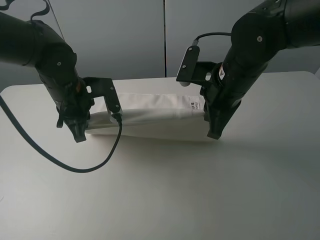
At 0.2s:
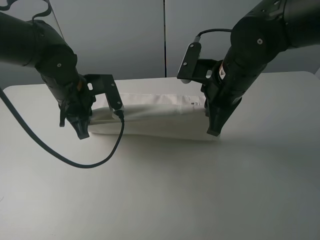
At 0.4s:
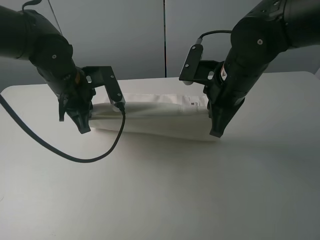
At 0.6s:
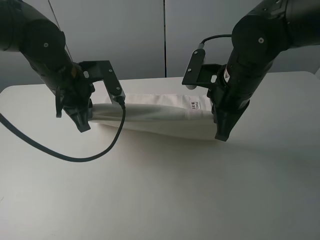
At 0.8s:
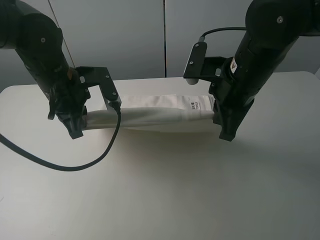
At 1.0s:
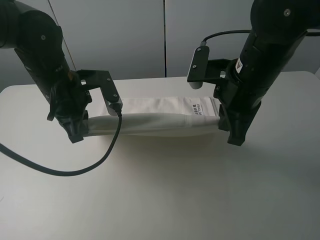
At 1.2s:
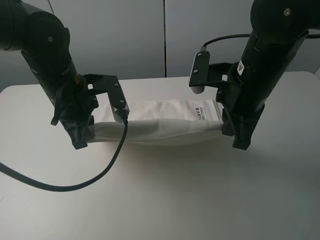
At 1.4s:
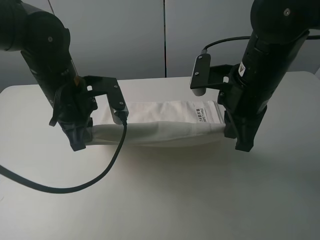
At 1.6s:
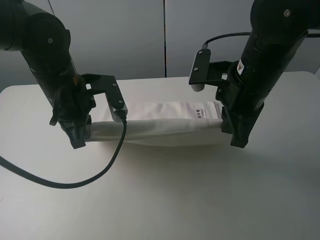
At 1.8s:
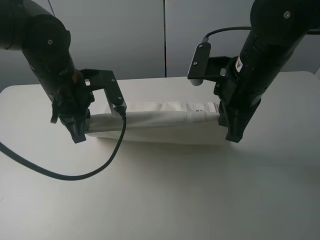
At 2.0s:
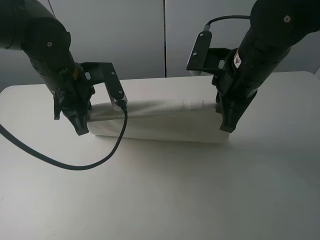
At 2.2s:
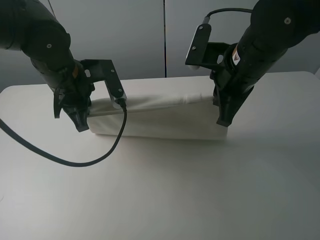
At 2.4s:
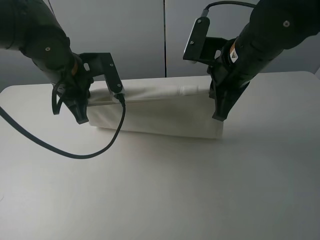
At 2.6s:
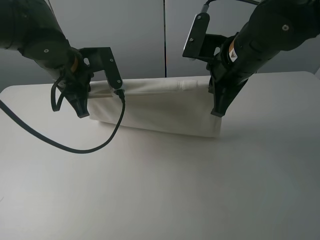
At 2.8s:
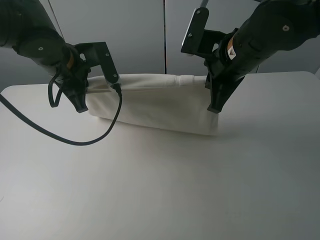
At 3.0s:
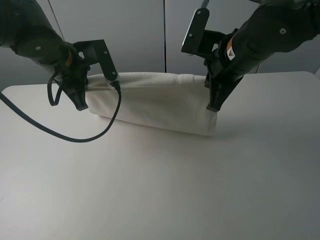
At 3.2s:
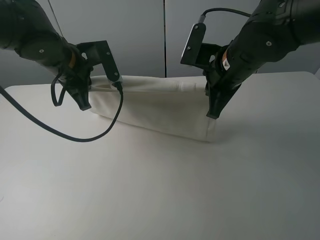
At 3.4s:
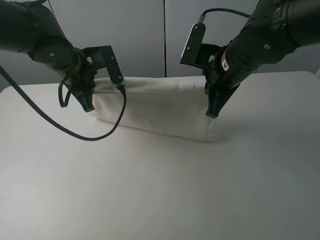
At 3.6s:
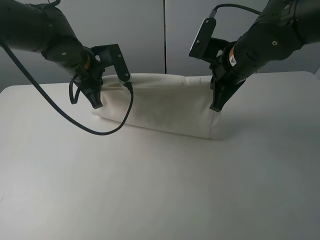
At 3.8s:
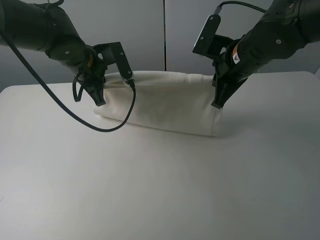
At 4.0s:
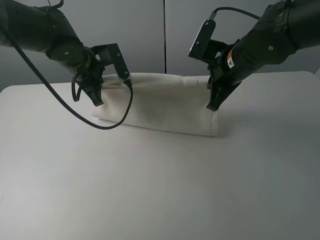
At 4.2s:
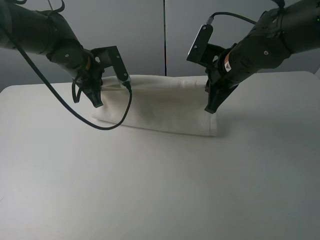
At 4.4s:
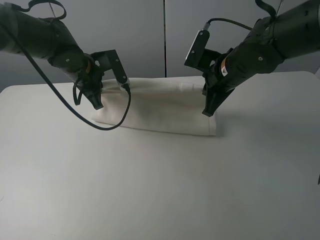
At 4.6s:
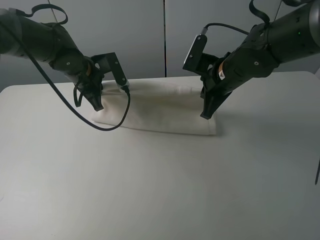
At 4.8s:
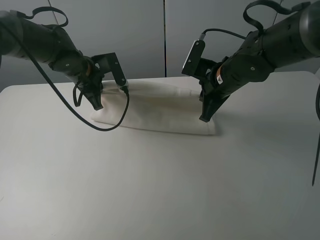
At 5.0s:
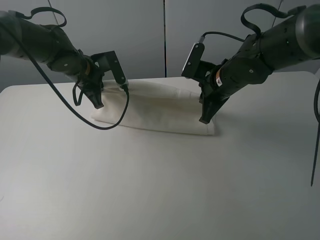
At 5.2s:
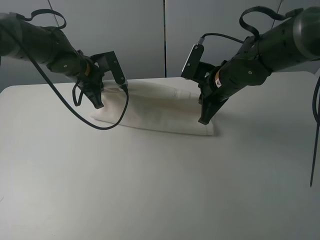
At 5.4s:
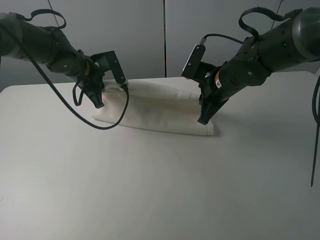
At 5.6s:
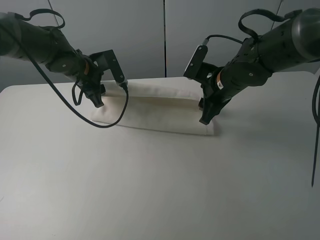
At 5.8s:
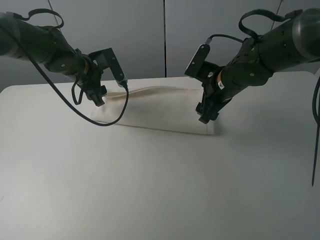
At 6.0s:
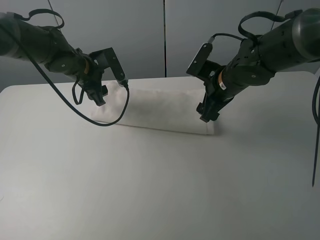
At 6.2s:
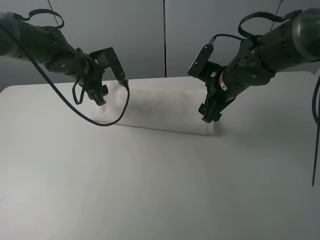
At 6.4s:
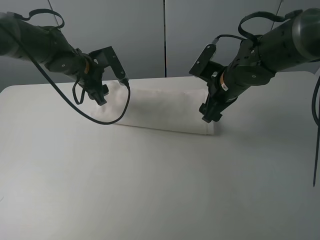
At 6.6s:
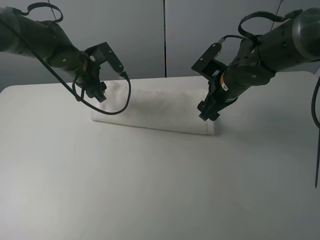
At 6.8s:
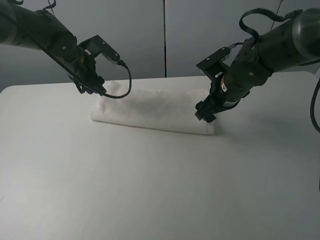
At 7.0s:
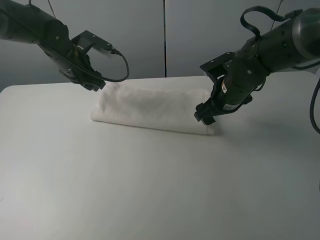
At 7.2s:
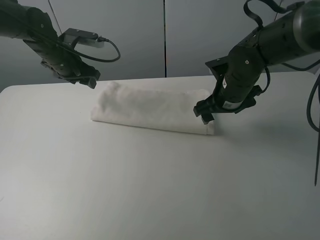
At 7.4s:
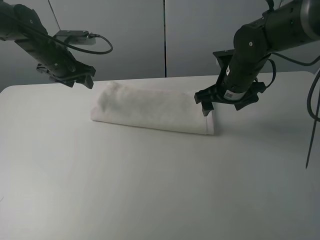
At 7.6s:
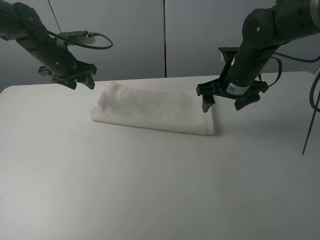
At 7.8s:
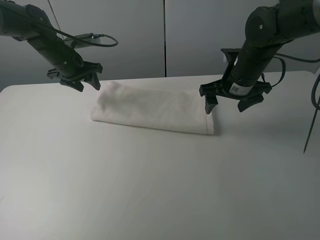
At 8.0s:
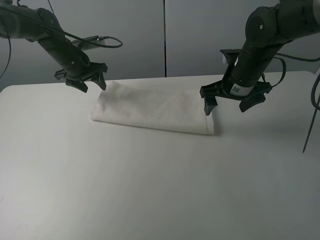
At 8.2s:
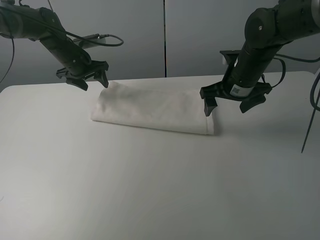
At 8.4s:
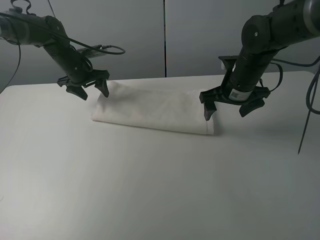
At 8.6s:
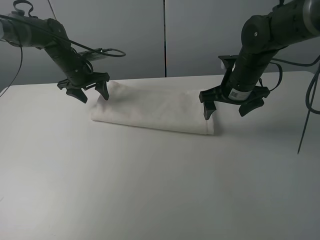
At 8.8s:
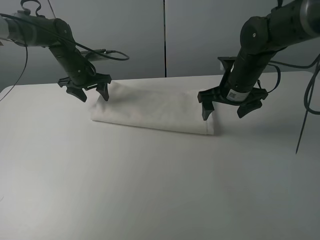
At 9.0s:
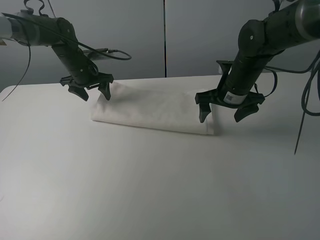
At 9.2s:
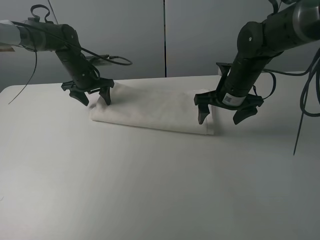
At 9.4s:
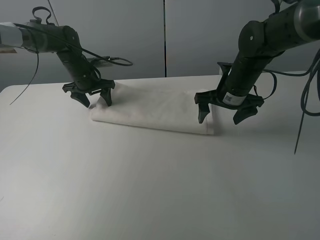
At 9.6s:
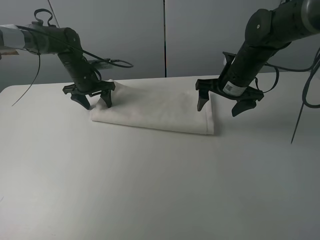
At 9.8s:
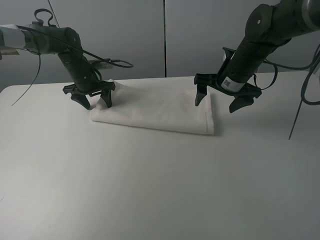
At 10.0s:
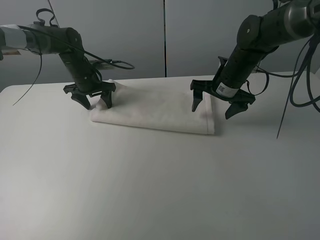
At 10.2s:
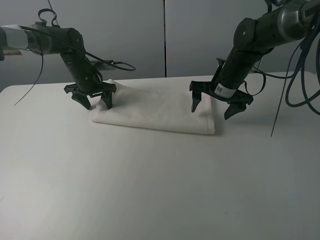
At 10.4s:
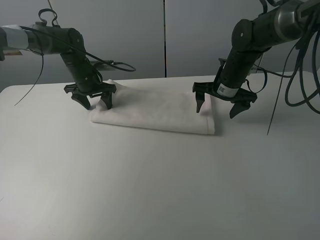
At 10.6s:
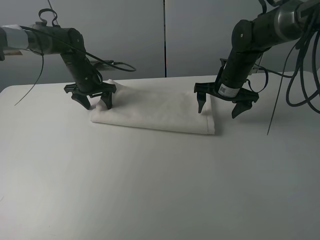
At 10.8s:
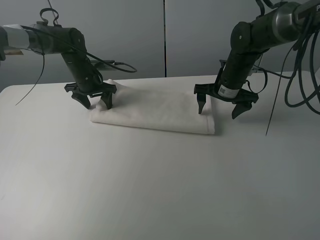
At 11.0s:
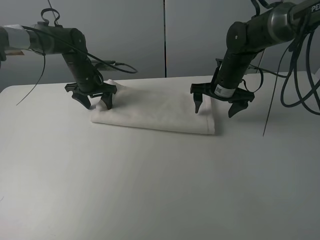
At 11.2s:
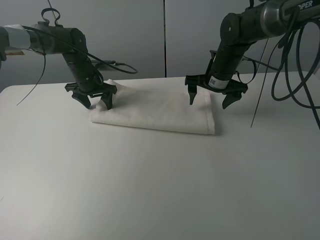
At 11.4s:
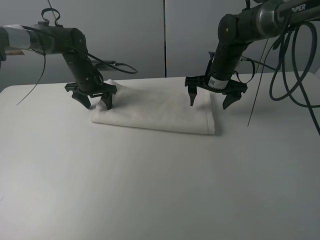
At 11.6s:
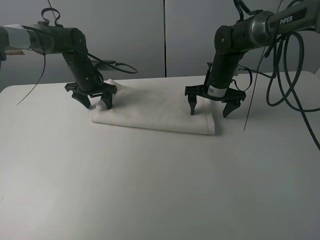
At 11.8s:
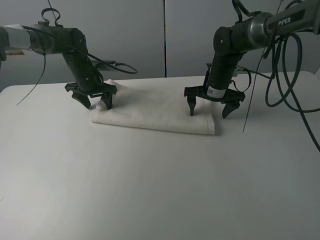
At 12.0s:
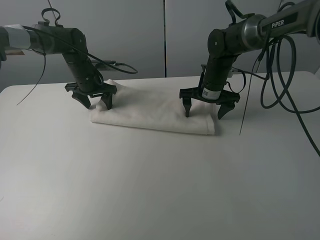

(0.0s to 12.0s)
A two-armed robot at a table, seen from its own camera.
Task of the whole recording: fold the towels on the table.
Step, 0.0s - 6.6s: Fold the white towel upwards with the right gripper.
Step, 7.0s - 9.6s: Press on the white towel with the left gripper.
0.0s - 1.6s: The grippers move only a little.
1.6s - 3.0s: The left gripper is displaced forward by roughly 5 cm.
3.0s - 4.4s: The left gripper moves forward and downward, roughly 10 cm. The right gripper heads downward, covering approximately 5 cm.
4.4s - 6.0s: The right gripper opens up. The left gripper opens up.
6.0s - 7.6s: The left gripper heads to the left, covering some 5 cm.
7.6s - 9.0s: The left gripper ends up approximately 5 cm from where it was.
9.0s - 10.4s: The right gripper changes place by about 5 cm.
10.4s - 12.0s: The right gripper ends up roughly 5 cm from where it was.

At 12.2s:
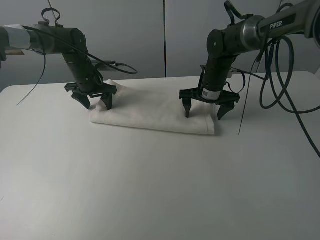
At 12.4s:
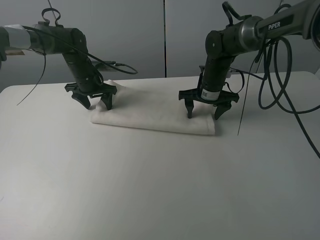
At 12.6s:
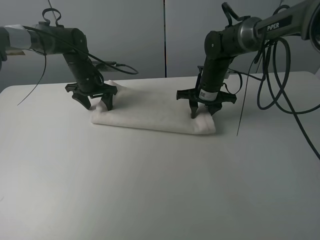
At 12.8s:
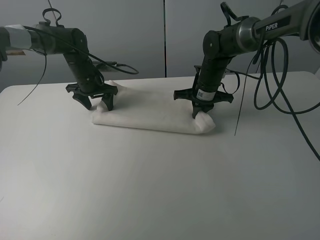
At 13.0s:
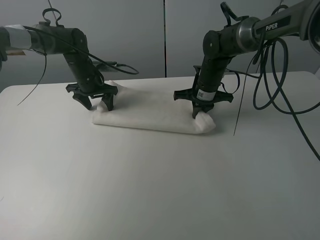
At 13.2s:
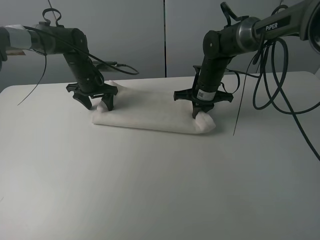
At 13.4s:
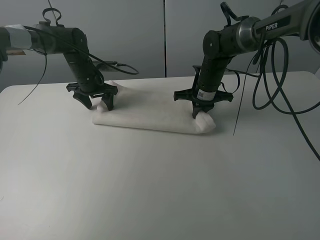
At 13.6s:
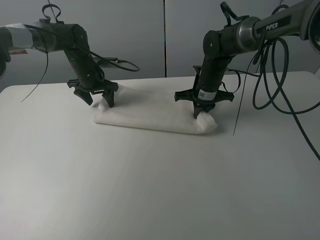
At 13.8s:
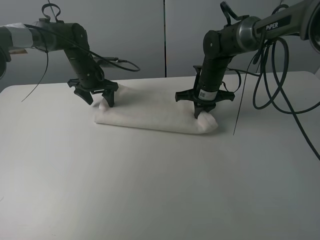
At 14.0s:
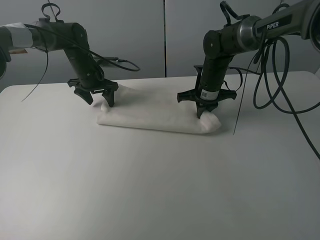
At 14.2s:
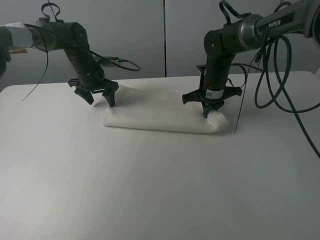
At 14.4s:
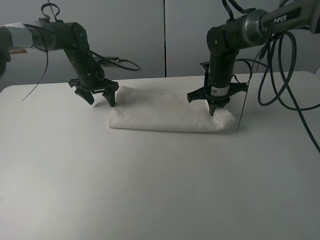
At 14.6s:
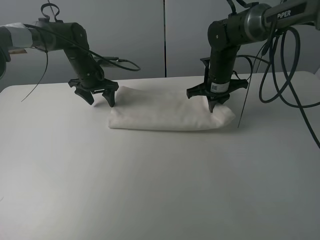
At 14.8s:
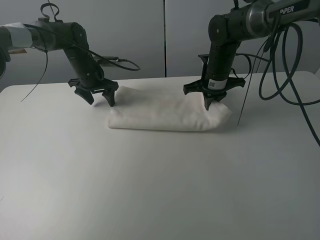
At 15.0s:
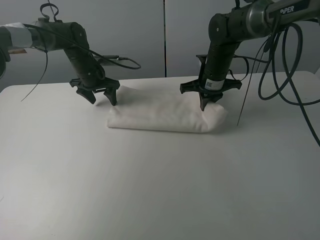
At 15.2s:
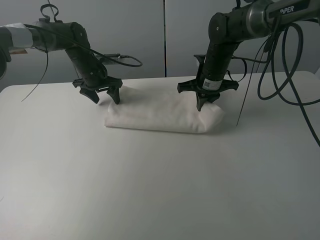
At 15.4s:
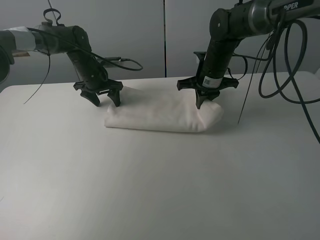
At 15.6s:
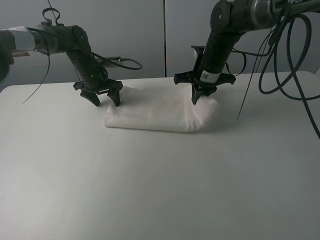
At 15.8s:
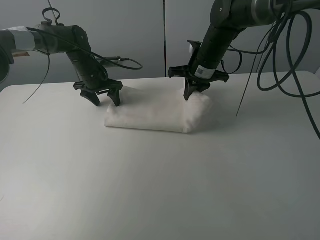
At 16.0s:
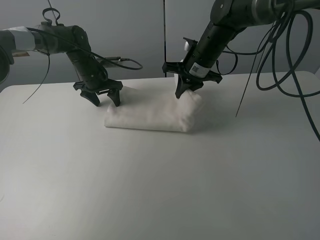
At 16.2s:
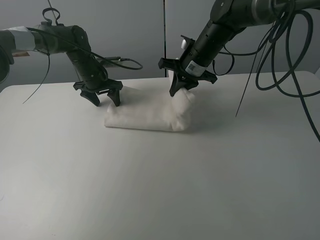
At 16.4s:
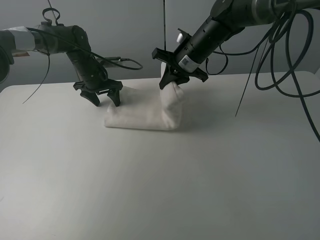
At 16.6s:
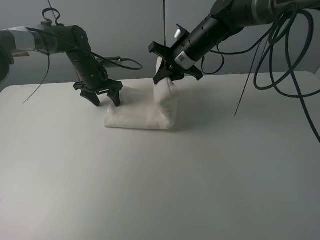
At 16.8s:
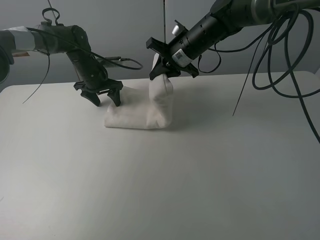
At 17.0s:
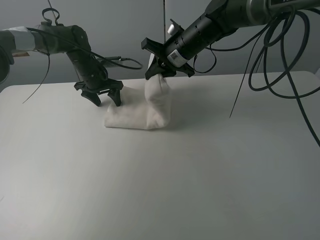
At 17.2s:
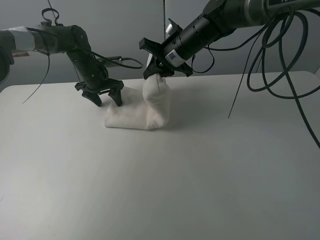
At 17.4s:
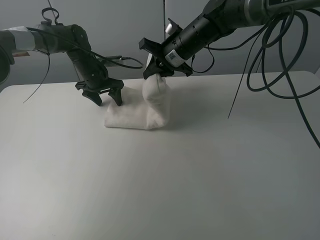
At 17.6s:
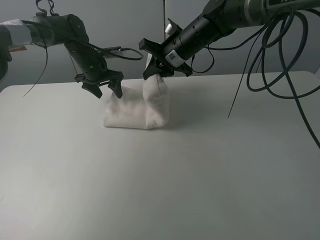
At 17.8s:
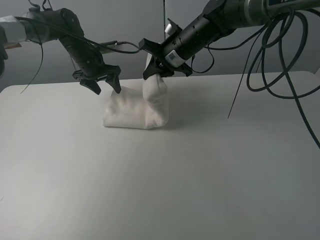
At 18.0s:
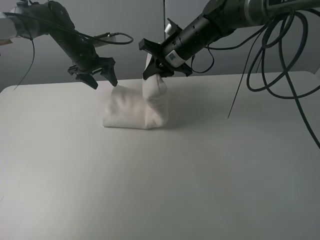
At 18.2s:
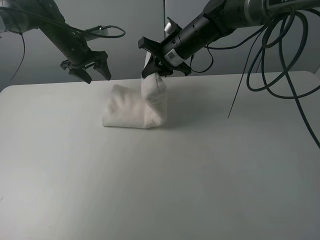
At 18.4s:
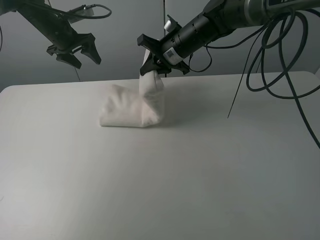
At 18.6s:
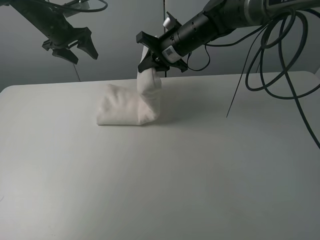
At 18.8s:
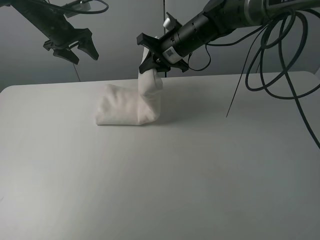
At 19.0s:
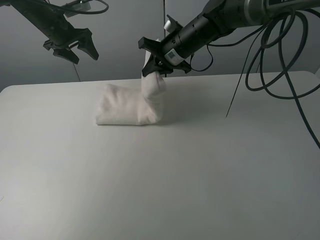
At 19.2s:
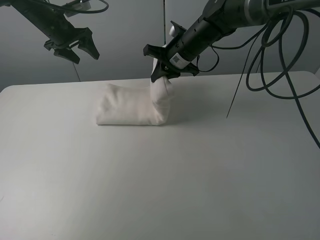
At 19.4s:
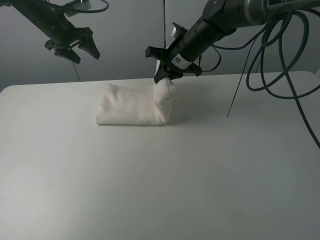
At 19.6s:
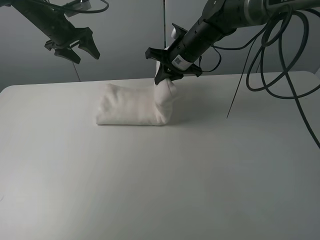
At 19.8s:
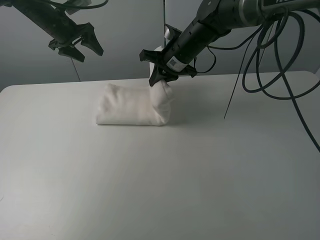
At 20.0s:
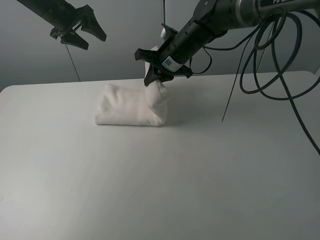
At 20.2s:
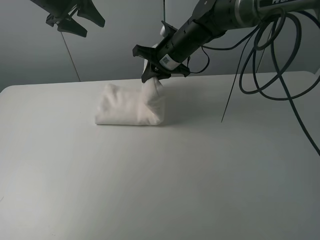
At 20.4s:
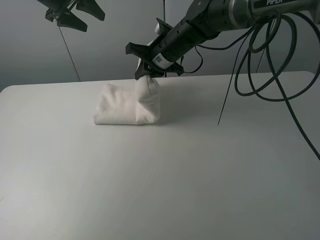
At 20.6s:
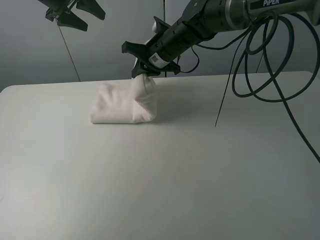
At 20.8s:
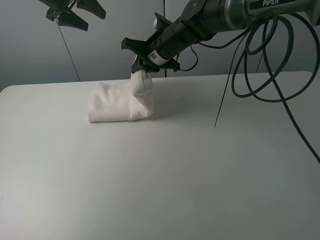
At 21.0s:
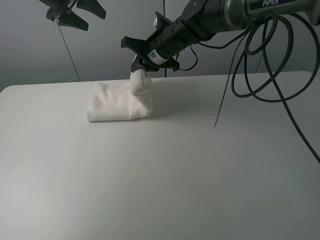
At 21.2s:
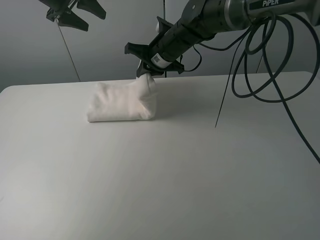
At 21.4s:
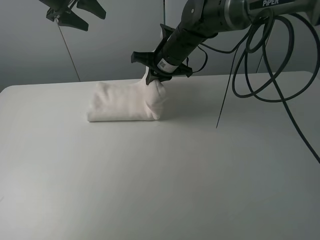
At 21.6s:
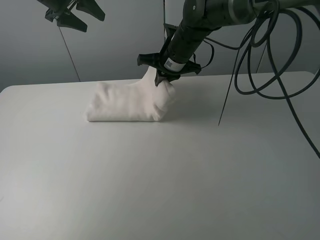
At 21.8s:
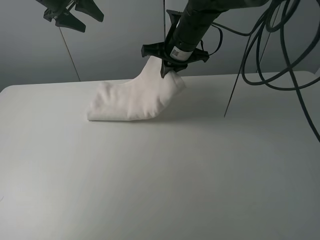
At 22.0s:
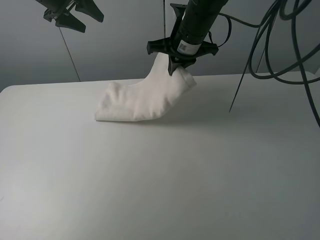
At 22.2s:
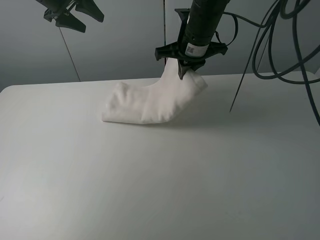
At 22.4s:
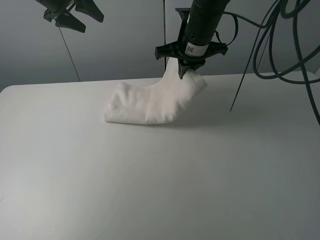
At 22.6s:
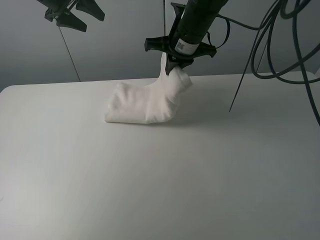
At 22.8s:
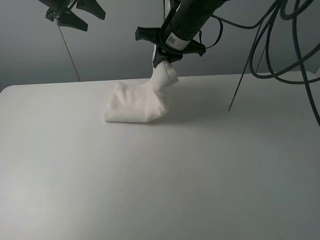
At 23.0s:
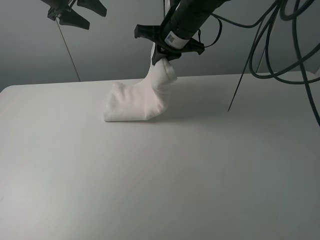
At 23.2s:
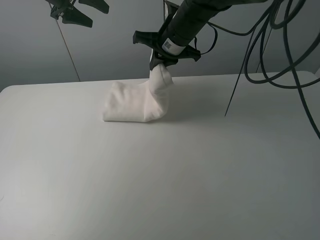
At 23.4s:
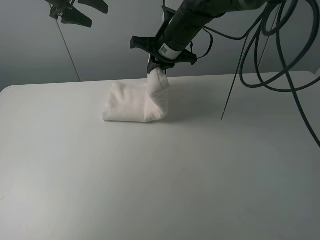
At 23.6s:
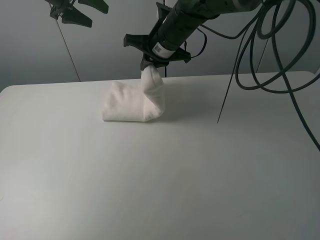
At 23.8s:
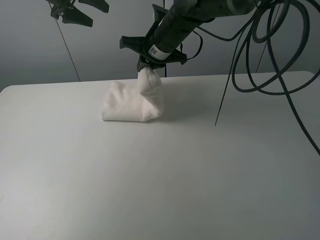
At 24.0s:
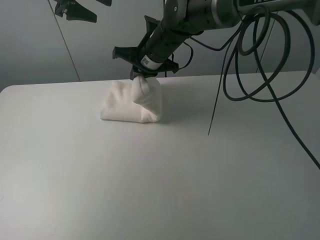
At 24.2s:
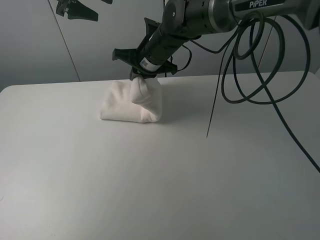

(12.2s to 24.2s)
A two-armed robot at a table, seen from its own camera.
Task of the whole recording: fold the towels on the table.
12.2s - 13.8s: The right gripper closes its fingers.
13.8s - 15.2s: The grippers stay close to where they were, moving slightly.
15.2s - 16.6s: The right gripper heads upward and to the left, covering roughly 5 cm.
16.6s - 18.2s: The left gripper travels upward by about 5 cm.
18.2s - 19.8s: The left gripper shifts approximately 5 cm upward.
19.8s - 21.2s: The left gripper travels upward by about 5 cm.
21.2s - 22.6s: The right gripper travels upward by approximately 5 cm.
22.6s - 24.2s: The right gripper moves to the left and downward, some 10 cm.
